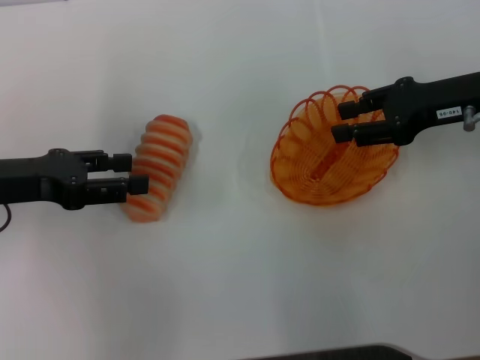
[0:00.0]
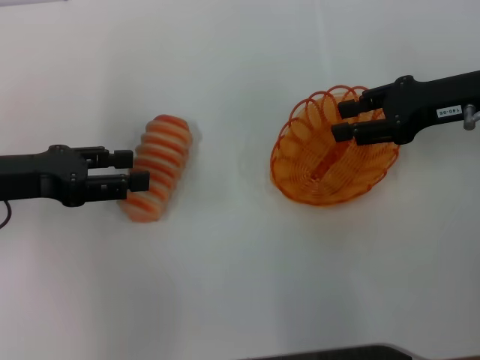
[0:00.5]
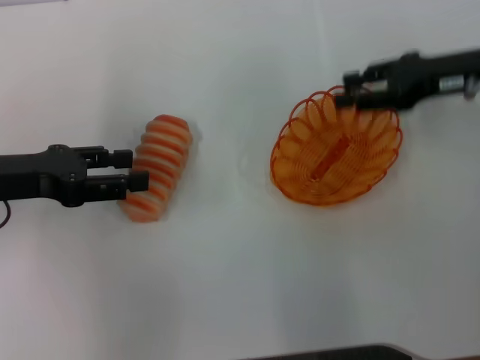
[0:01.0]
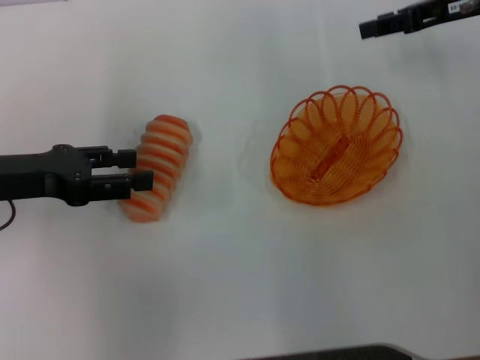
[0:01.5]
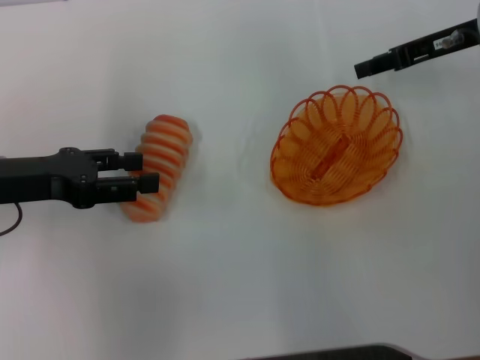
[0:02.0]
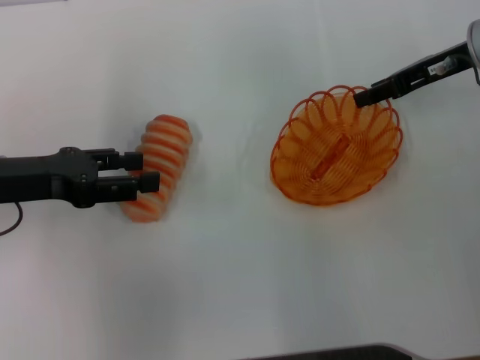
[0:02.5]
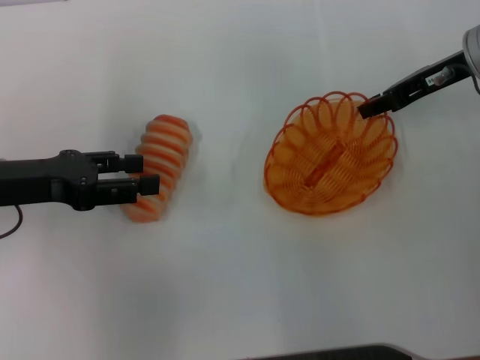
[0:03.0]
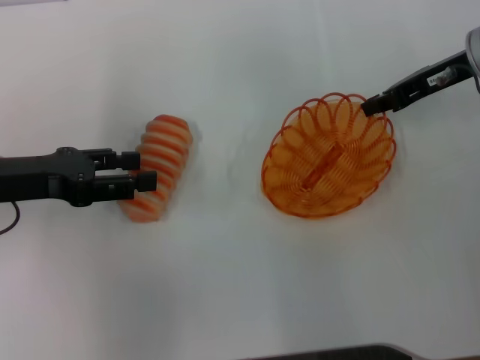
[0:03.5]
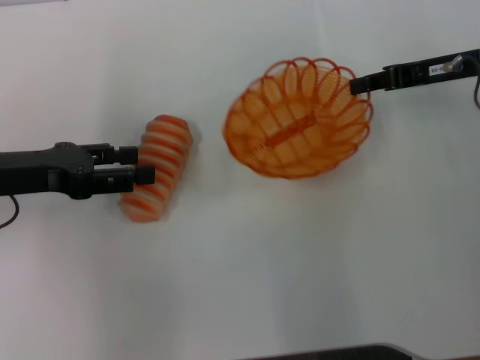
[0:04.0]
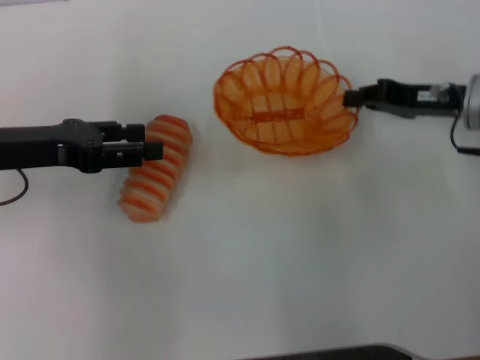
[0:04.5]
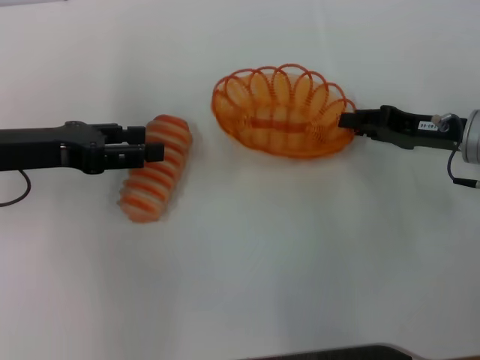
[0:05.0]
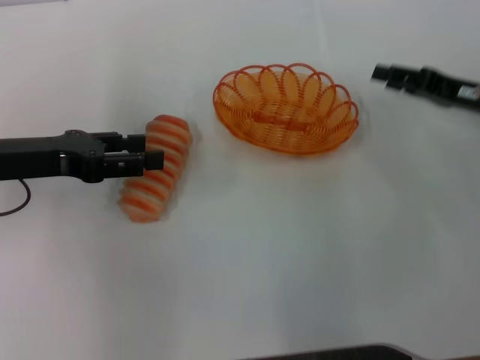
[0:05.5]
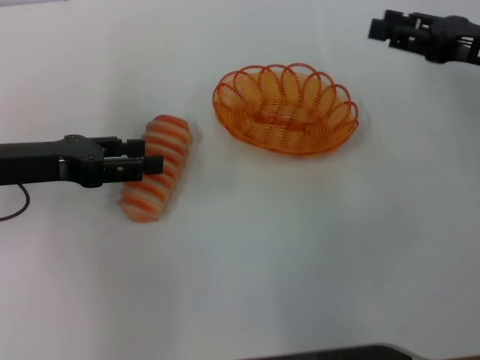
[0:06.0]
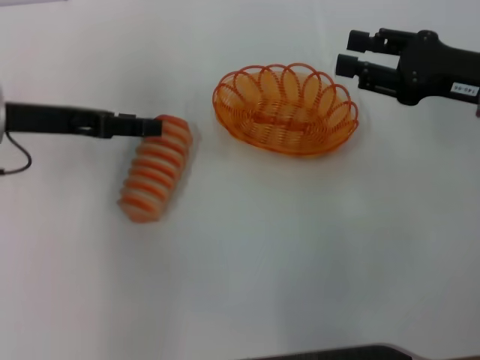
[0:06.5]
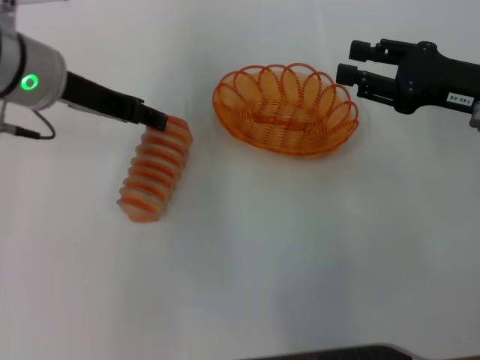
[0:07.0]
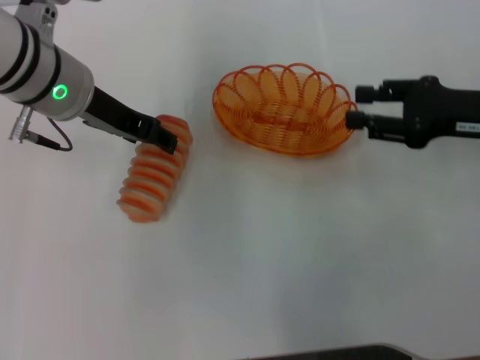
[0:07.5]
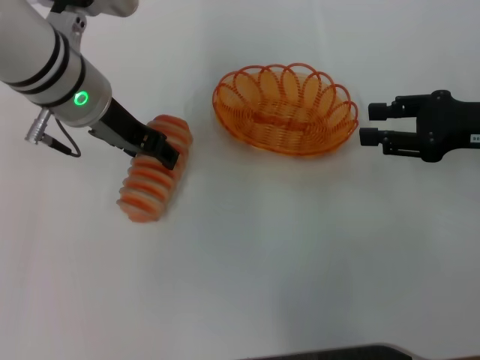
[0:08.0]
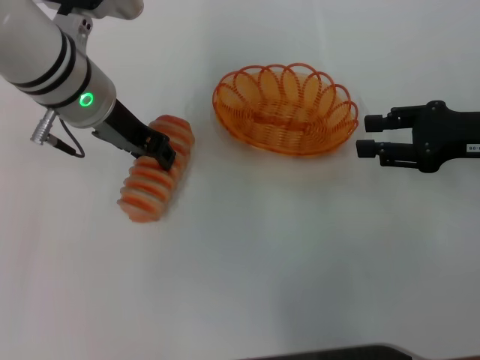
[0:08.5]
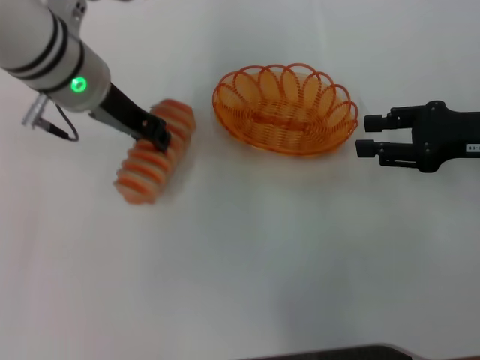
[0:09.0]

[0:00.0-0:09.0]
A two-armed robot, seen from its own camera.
Step, 0:00.0 to 0:03.5: Pick up the basket with the right gripper.
Step, 0:04.0 to 0:05.0: Place the basket in the center of view with the right gripper.
Step, 0:05.5 to 0:09.0: Pick up the long bread with the left gripper.
0:00.0 to 0:02.0: The right gripper travels forward by some 5 cm.
0:02.0 to 0:04.5: The right gripper heads downward and backward, covering roughly 10 cm, and closes.
0:04.5 to 0:07.0: The right gripper moves approximately 5 cm, and opens up. The left gripper is displaced to the right, upward and forward by some 10 cm.
0:07.0 to 0:09.0: The left gripper closes its fingers.

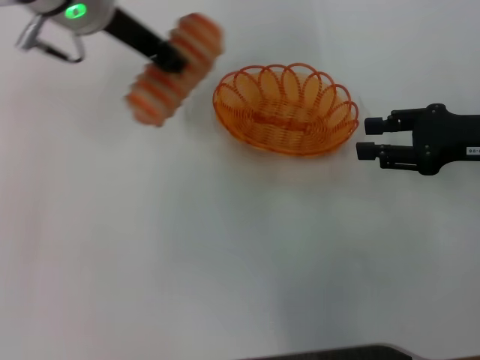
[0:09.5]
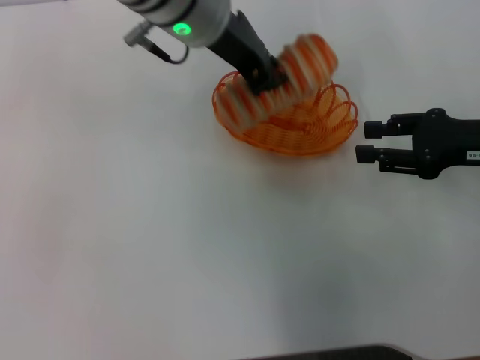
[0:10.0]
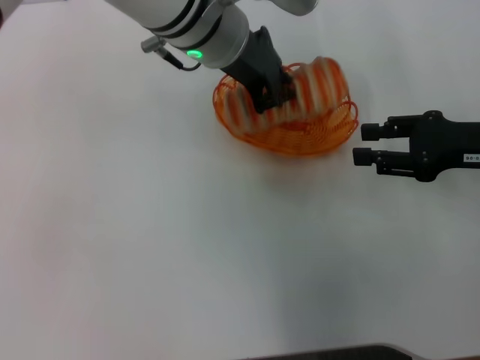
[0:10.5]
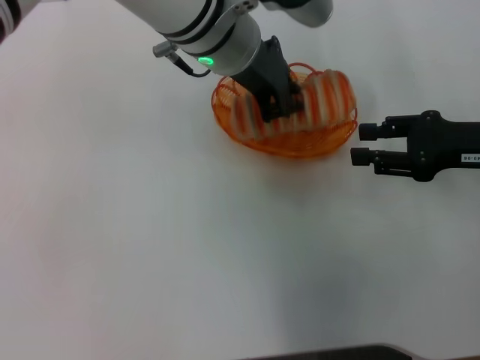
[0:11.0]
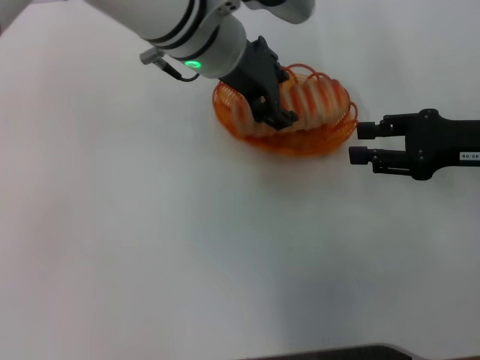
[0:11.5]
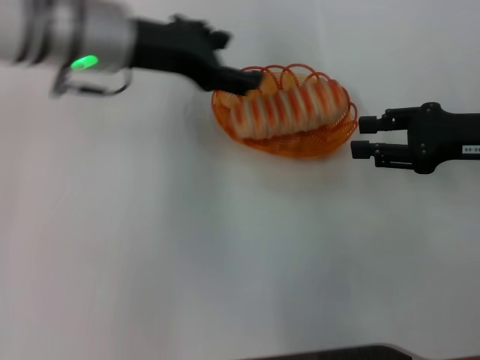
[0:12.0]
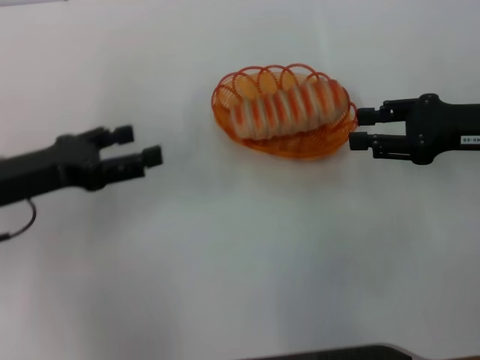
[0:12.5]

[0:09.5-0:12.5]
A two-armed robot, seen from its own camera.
Step, 0:09.5 to 0:11.5: Place the long bread into the basket with the left gripper.
0:09.5 to 0:11.0: The left gripper shifts about 10 cm to the right.
0:11.0 to 0:12.5: The left gripper shifts roughly 25 cm to the left and backward, and opens its fingers.
